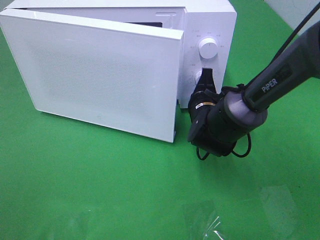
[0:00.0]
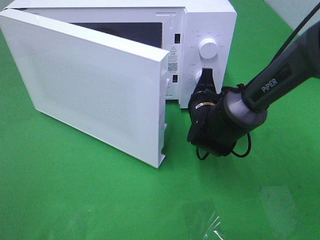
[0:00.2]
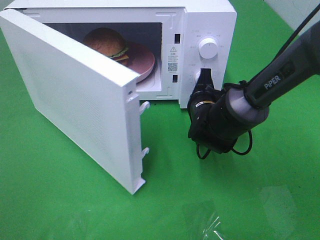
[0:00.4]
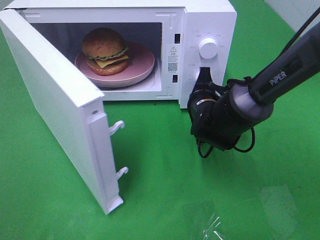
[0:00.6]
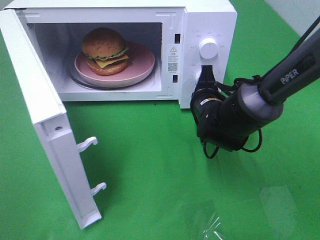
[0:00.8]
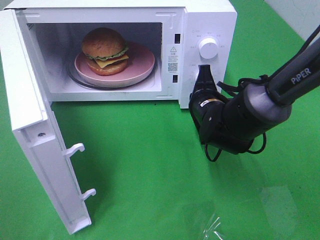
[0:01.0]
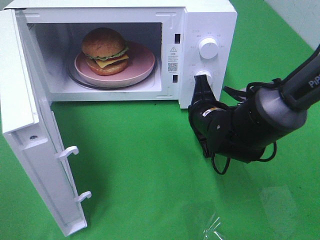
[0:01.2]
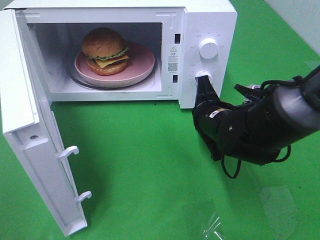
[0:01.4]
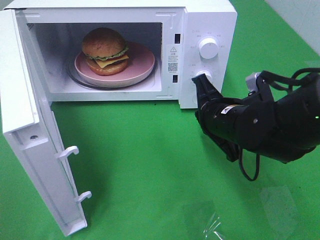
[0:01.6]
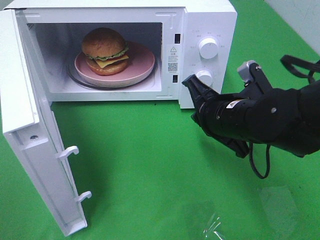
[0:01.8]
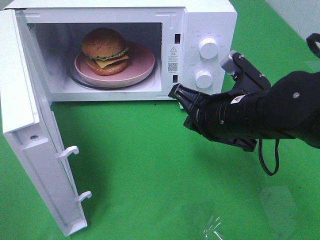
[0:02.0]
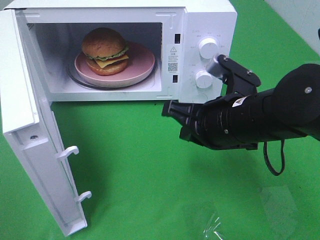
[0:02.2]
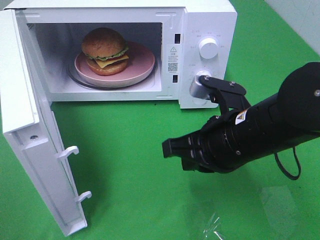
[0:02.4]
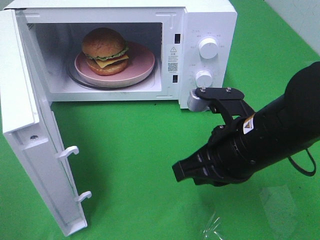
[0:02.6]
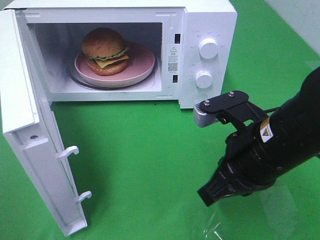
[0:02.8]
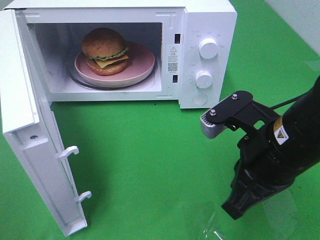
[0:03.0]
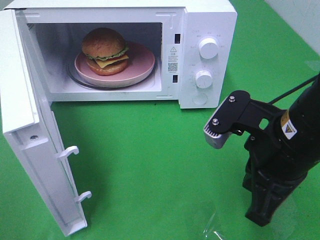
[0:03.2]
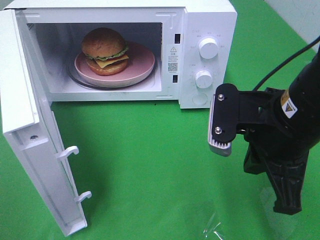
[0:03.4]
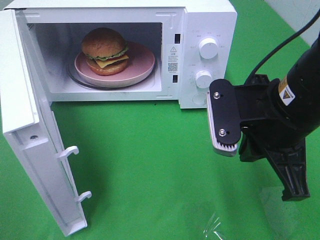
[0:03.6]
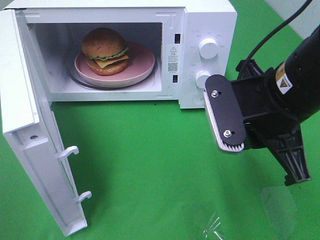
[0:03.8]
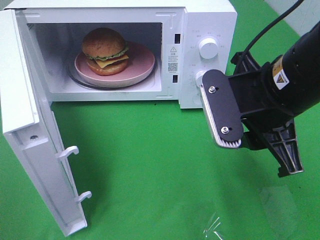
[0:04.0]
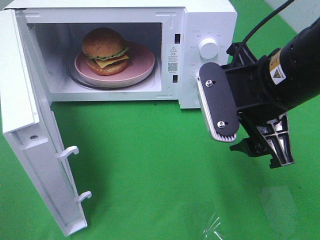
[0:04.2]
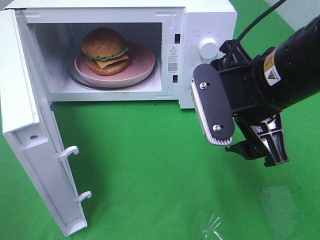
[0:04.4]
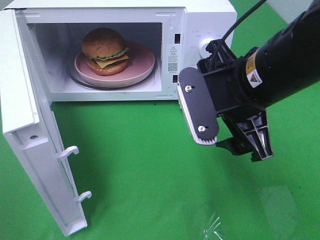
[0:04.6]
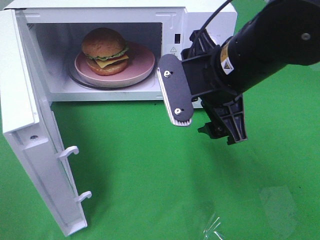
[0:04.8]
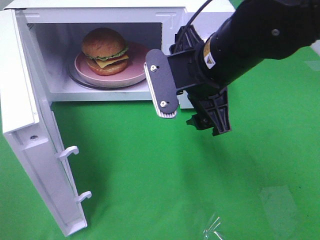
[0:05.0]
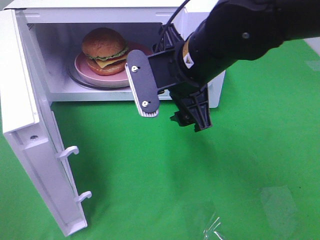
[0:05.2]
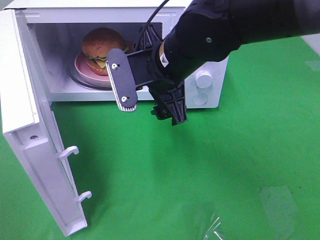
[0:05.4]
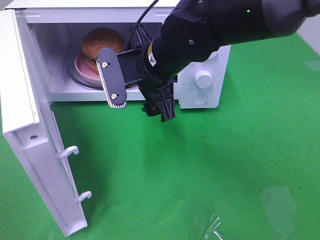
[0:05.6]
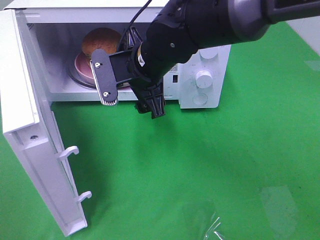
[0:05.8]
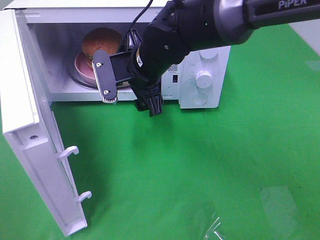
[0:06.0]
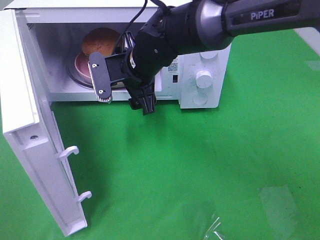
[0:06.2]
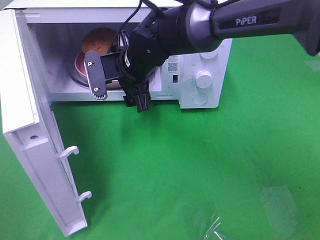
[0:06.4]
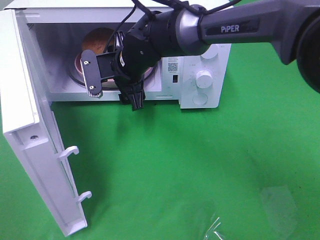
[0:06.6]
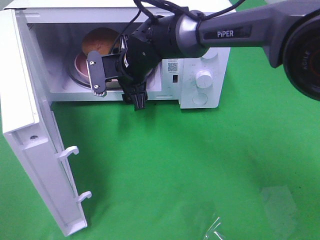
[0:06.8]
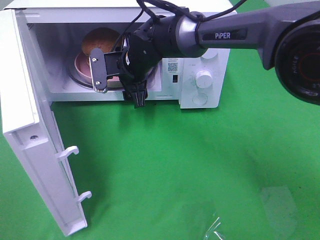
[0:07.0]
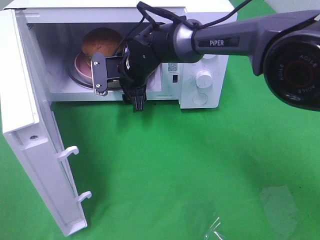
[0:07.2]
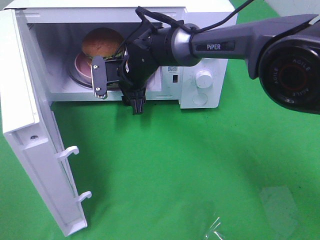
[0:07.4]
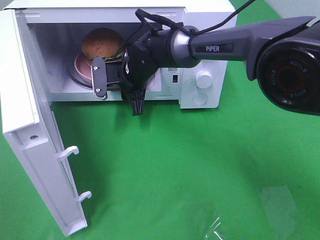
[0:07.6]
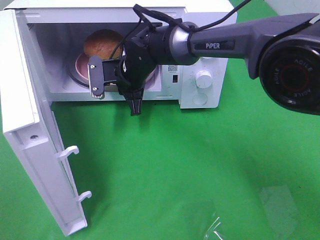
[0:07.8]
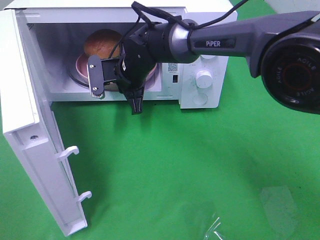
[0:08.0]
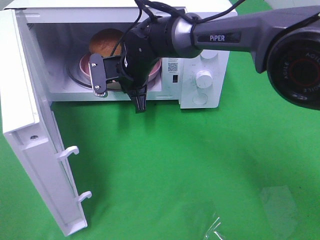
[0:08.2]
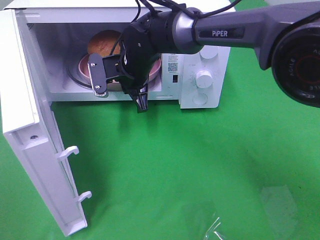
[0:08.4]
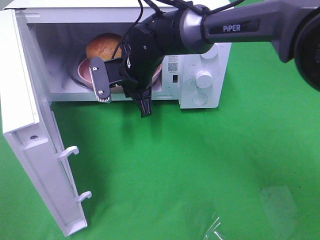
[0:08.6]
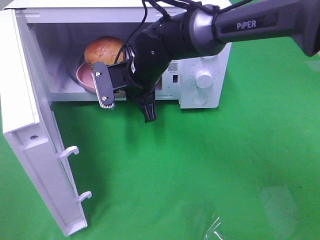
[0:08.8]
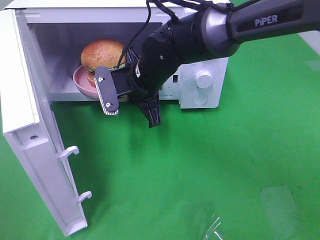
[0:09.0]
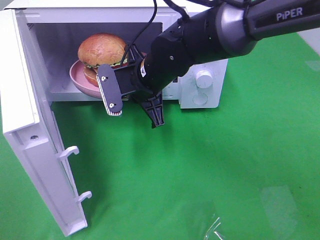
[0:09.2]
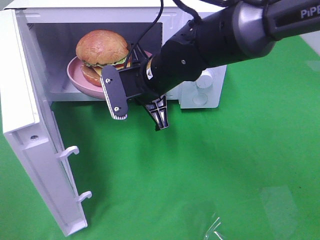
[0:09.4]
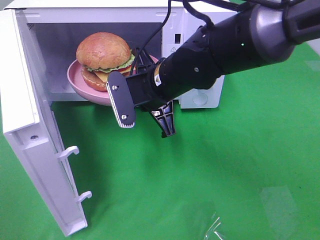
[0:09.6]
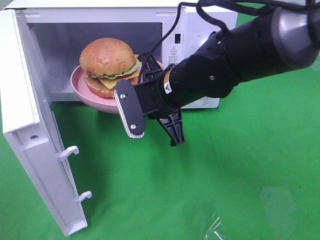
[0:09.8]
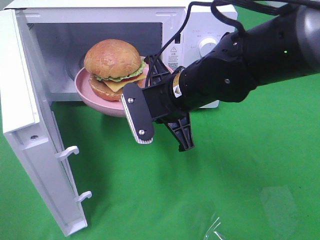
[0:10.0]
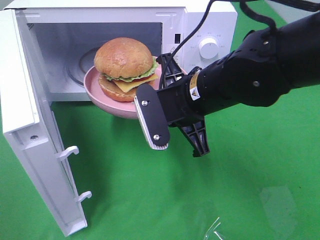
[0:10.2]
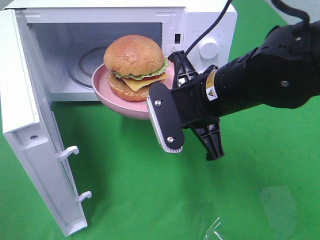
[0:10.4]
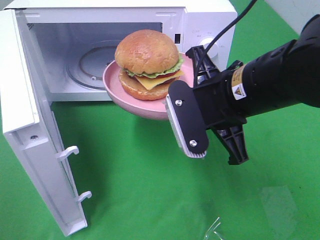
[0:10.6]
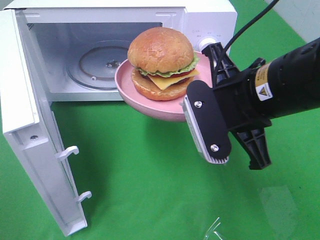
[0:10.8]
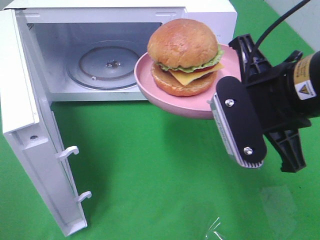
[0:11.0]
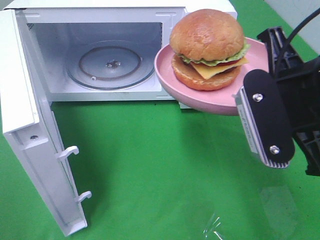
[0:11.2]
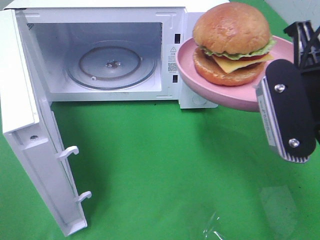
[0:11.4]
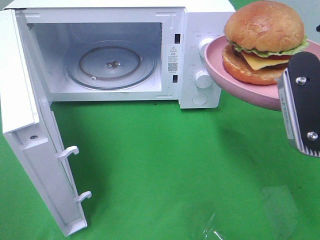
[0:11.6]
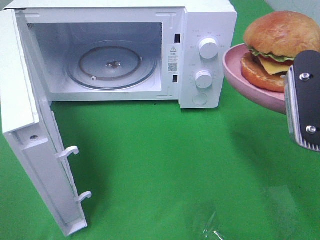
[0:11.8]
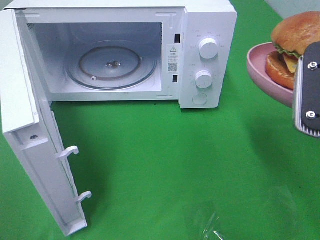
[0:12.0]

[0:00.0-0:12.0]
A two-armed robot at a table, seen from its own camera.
Task of the whole recording: Heat the burger.
Step, 0:01.6 to 0:08.0: Right hand: grab the plate with the hamburger.
0:00.0 to 0:01.6: The right gripper shifts roughly 10 cm backward and upward.
0:01.6 to 0:03.0: The right gripper travels backward and upward by about 10 cm.
0:03.0 to 0:04.4: The right gripper moves upward, roughly 5 cm, and opens.
0:04.4 to 0:06.0: The right gripper shifts approximately 20 cm forward, to the left and downward.
0:06.0 to 0:07.6: The right gripper heads forward and downward, covering approximately 10 cm, and closes.
0:07.6 to 0:09.0: The right gripper goes roughly 5 cm backward, and closes up.
0:09.0 to 0:10.4: The right gripper heads backward and to the right, covering some 15 cm.
0:10.4 to 0:12.0: The right gripper moves to the right, backward and upward, some 15 cm.

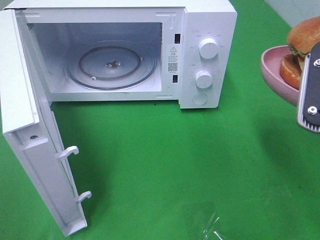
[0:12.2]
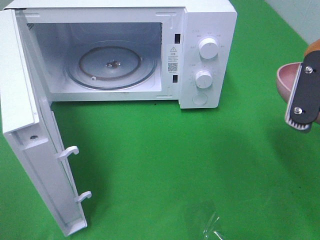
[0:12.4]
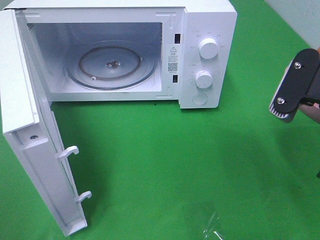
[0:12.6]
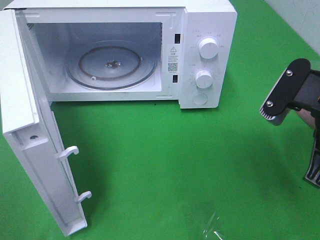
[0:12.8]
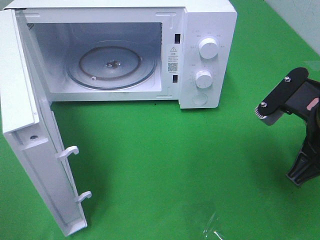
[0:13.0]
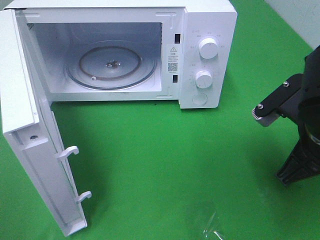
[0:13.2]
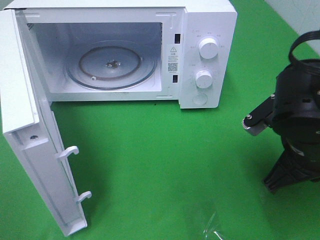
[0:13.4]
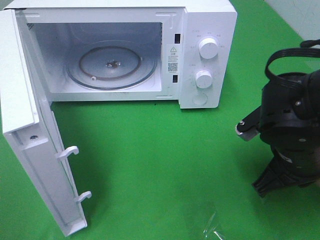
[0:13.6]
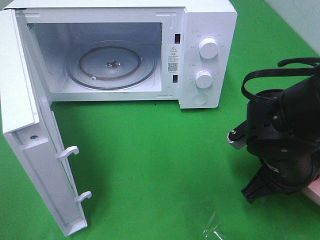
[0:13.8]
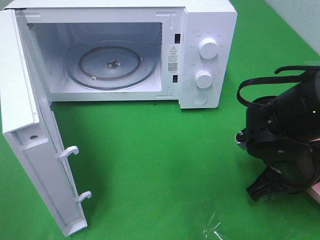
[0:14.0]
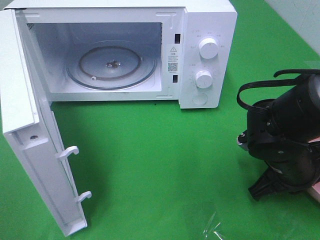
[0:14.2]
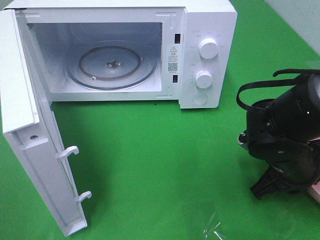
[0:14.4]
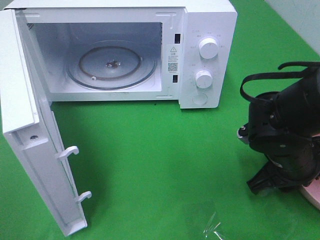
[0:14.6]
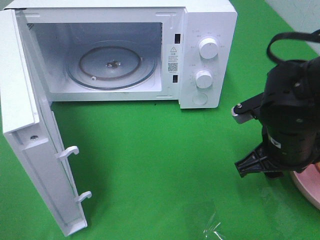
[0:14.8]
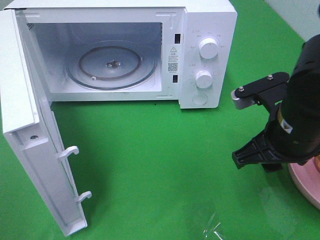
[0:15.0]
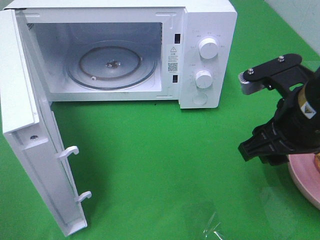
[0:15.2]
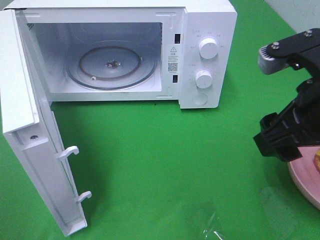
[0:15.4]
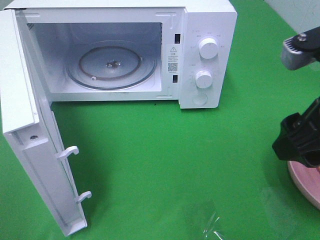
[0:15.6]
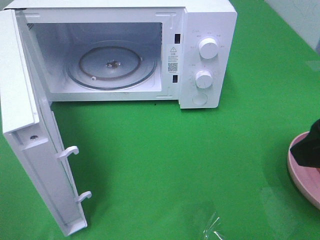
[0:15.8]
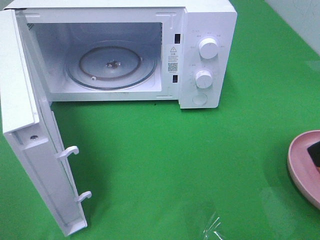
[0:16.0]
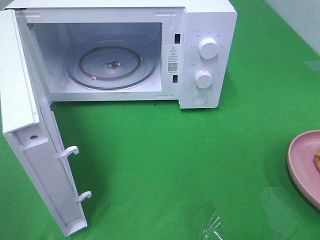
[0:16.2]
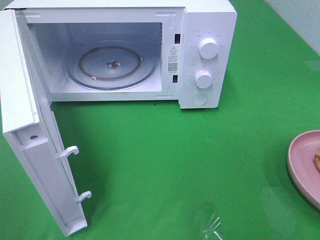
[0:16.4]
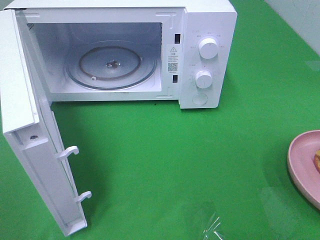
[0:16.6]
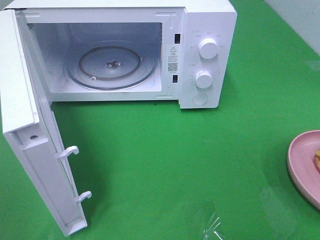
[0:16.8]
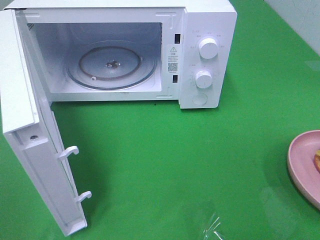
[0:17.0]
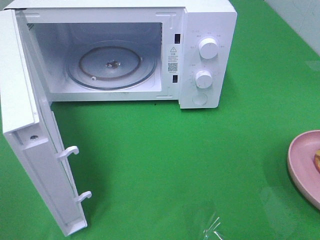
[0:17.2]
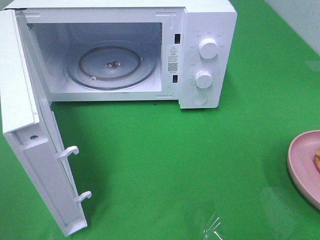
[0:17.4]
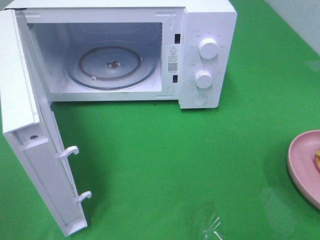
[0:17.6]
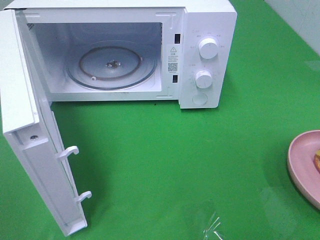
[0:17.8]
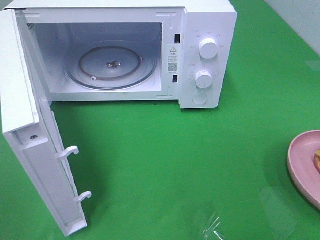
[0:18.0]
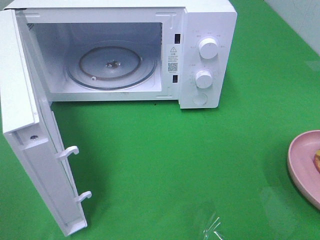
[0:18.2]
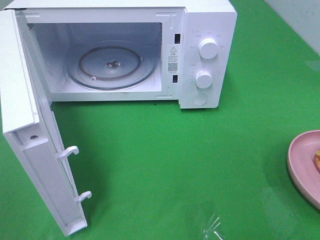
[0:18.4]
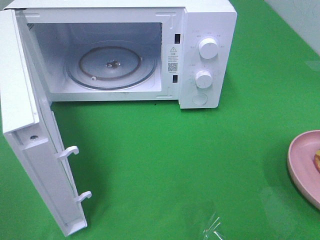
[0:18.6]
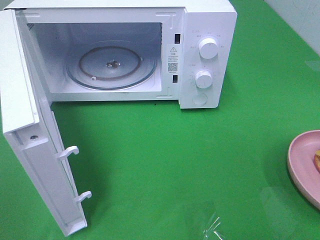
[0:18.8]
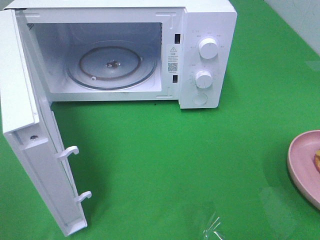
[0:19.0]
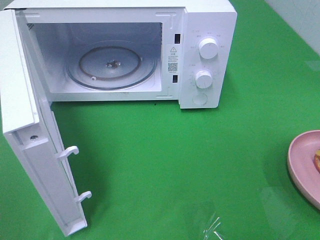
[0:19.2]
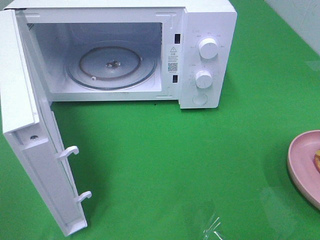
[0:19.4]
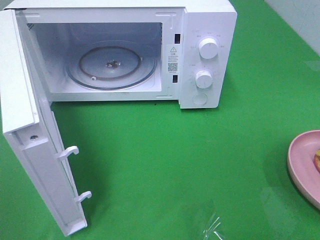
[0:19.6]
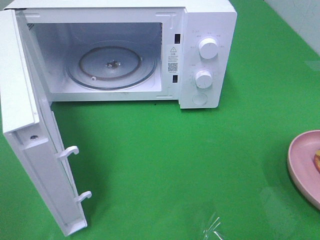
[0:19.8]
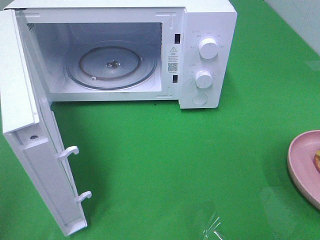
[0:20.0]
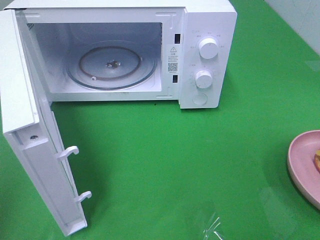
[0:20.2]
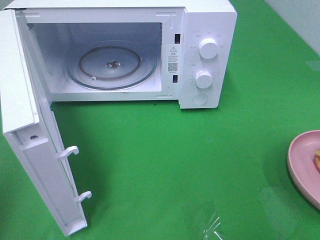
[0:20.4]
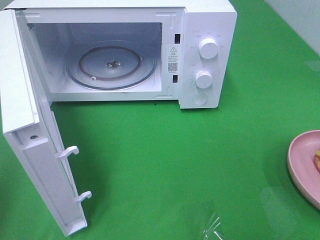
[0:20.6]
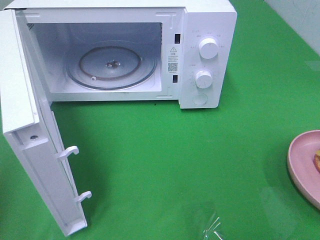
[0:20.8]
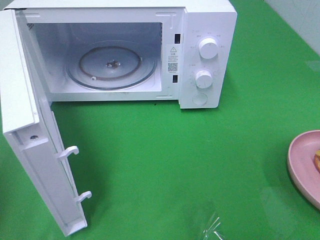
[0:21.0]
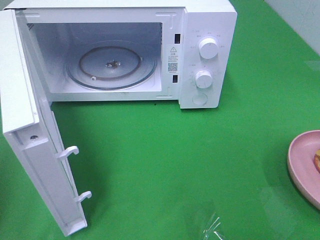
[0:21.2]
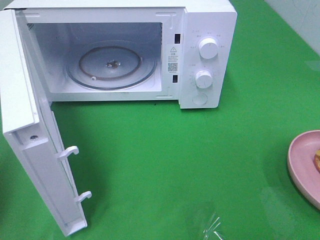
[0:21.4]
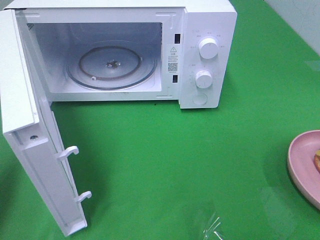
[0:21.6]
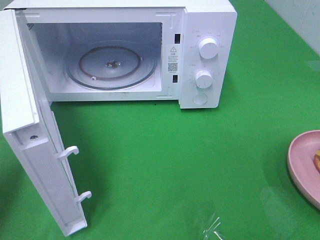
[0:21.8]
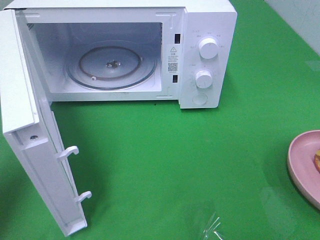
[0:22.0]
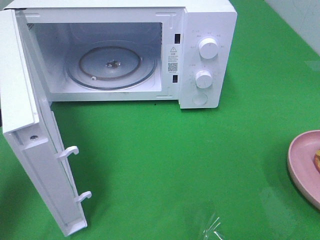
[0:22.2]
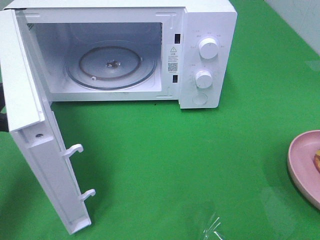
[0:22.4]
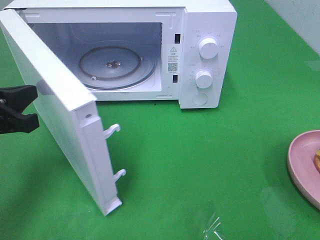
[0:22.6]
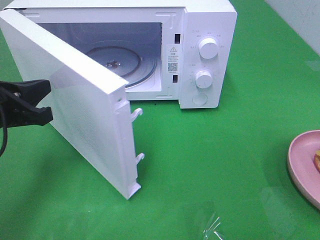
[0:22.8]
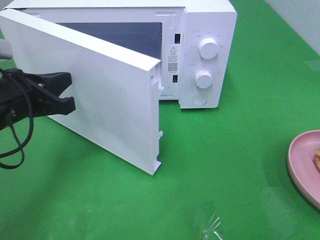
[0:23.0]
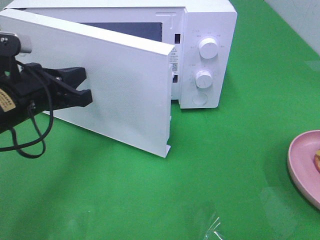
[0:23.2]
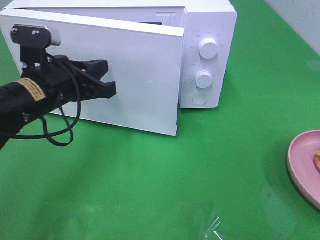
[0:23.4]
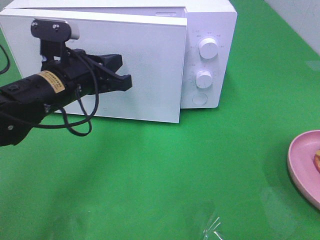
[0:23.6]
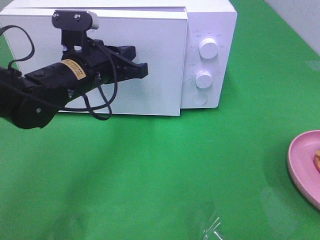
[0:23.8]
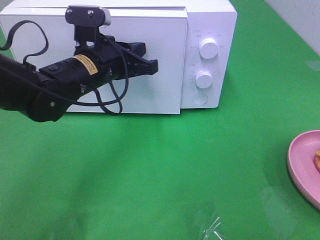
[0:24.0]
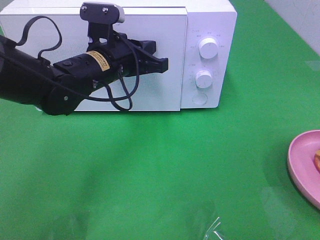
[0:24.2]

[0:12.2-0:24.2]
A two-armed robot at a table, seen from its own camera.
Task of the whole recording: Heat the burger.
Step, 0:12.2 to 0:15.2: Right hand: place the plate in the microwave.
0:12.2 to 0:13.8: The right gripper shifts some 15 cm downward.
0:13.8 to 0:15.2: The right gripper is displaced upward by approximately 10 cm, and opens up.
0:15.2 to 0:16.6: The right gripper travels backward, to the right and upward by roughly 20 cm.
0:21.2 to 0:22.6: The left gripper is displaced forward, to the right and downward by some 15 cm.
0:22.6 to 0:24.2: The left gripper shifts approximately 20 cm to the right and forward.
